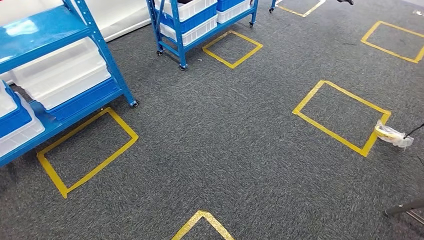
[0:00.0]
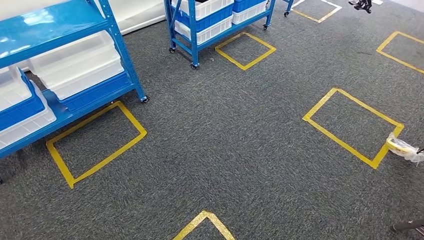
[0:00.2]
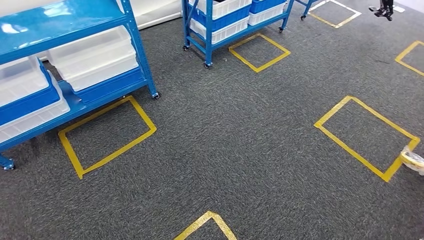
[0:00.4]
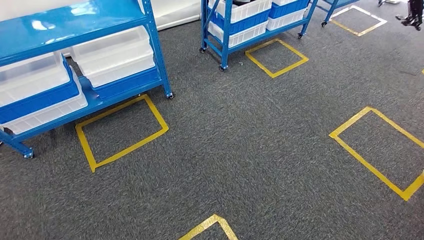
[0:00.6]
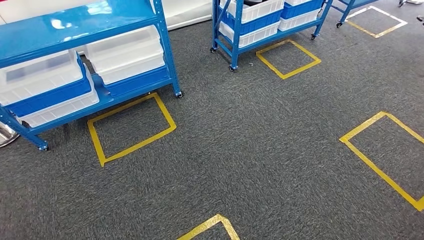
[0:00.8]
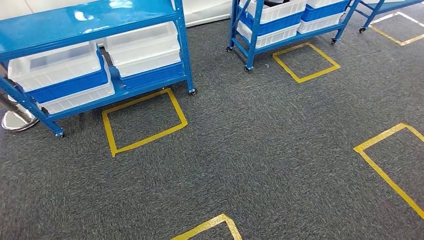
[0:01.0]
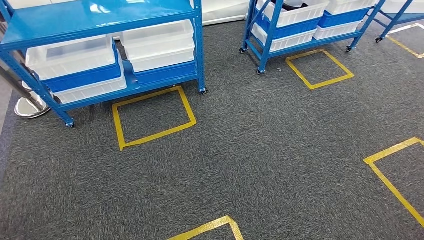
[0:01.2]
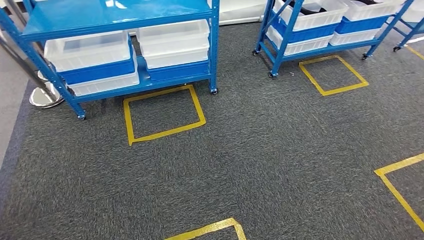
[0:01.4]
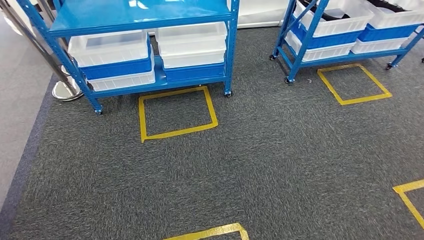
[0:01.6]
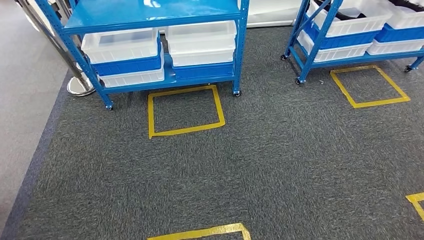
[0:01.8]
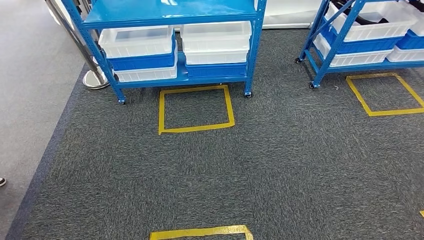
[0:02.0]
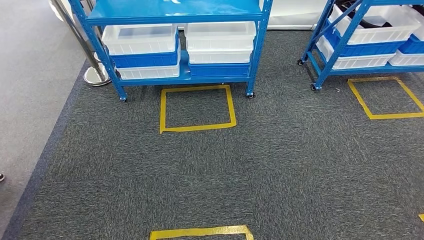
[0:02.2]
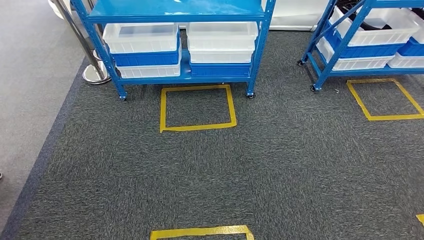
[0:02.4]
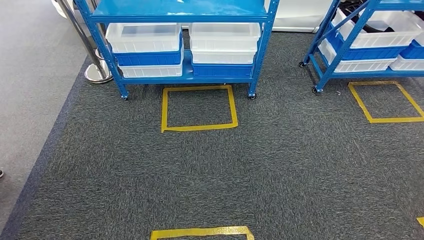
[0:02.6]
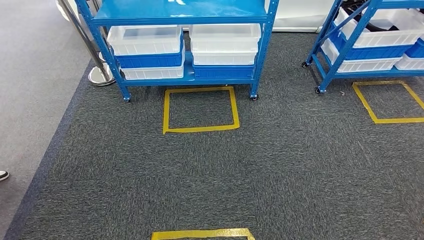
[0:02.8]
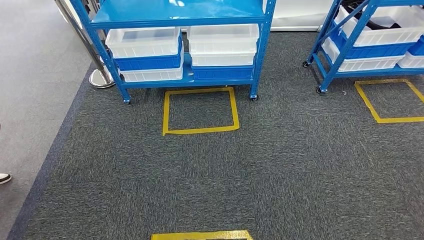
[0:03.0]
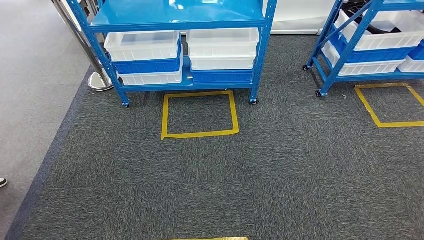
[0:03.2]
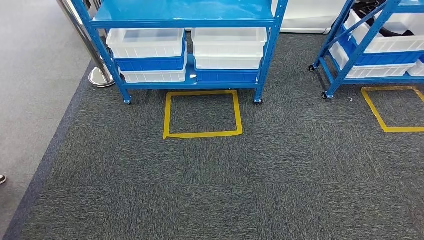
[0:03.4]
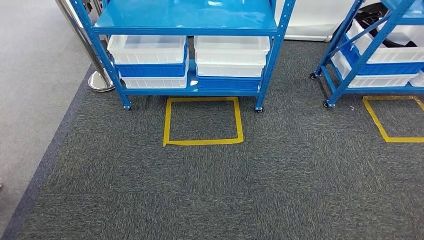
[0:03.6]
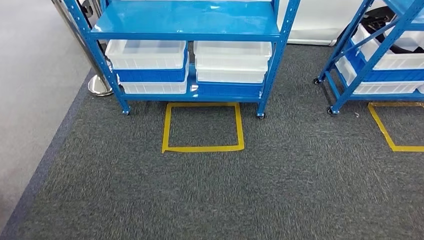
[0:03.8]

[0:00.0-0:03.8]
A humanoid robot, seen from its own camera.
Step, 0:00.0 to 0:03.8: Move to the initial position of the shelf.
